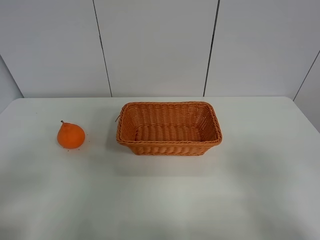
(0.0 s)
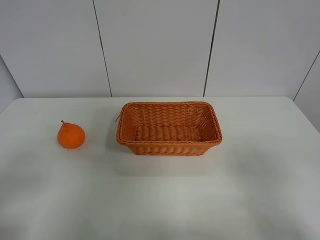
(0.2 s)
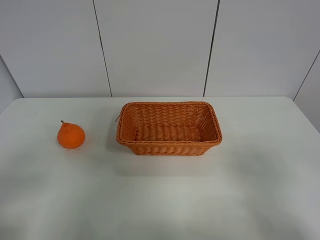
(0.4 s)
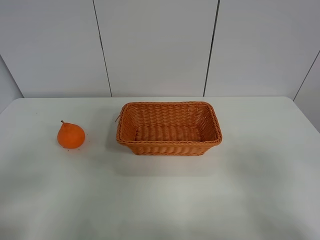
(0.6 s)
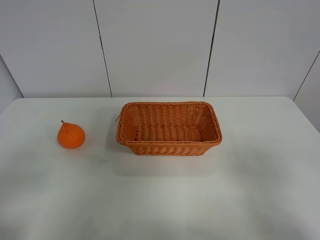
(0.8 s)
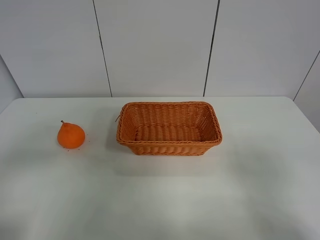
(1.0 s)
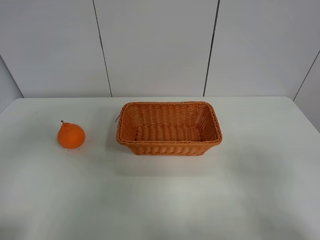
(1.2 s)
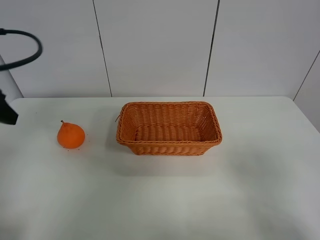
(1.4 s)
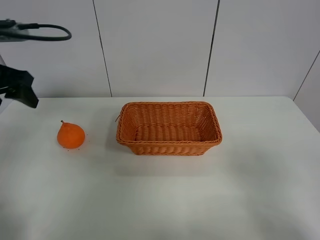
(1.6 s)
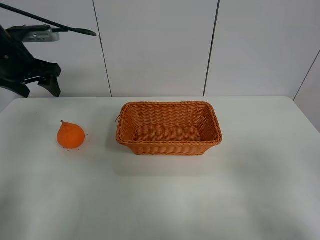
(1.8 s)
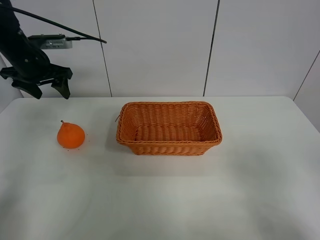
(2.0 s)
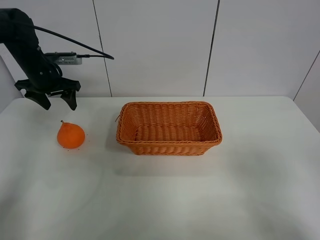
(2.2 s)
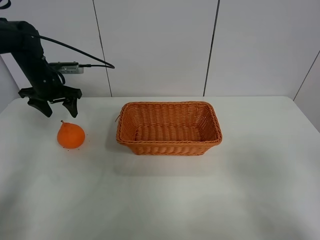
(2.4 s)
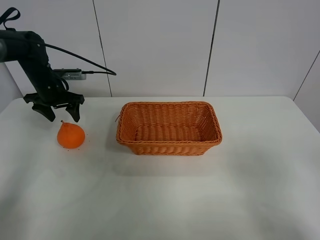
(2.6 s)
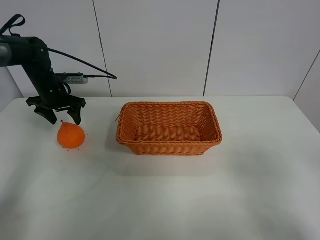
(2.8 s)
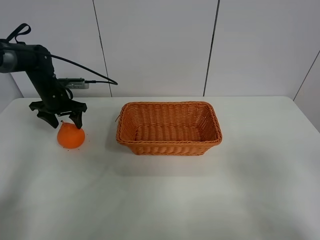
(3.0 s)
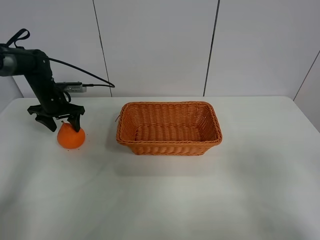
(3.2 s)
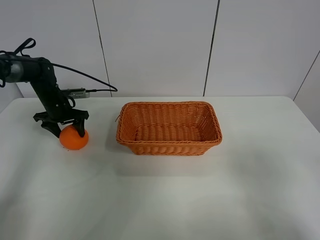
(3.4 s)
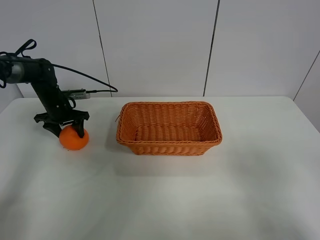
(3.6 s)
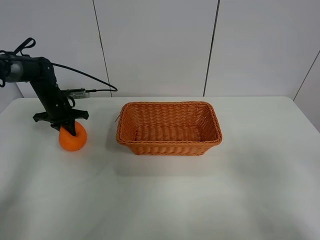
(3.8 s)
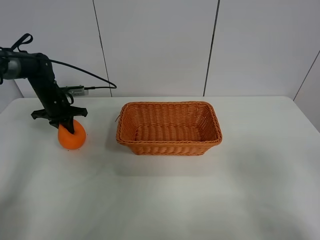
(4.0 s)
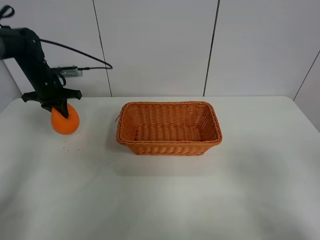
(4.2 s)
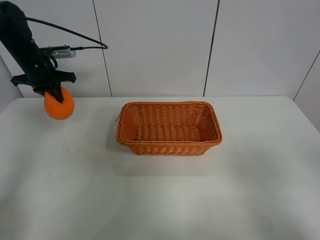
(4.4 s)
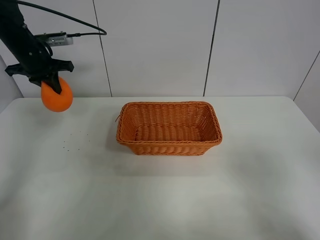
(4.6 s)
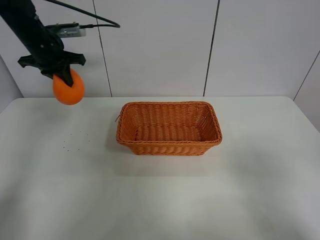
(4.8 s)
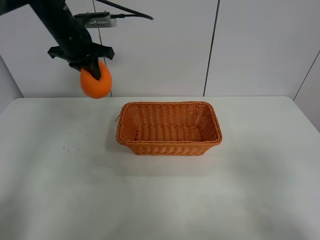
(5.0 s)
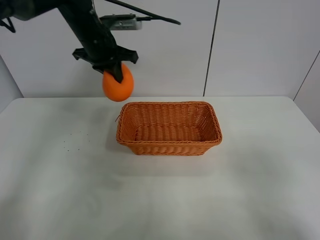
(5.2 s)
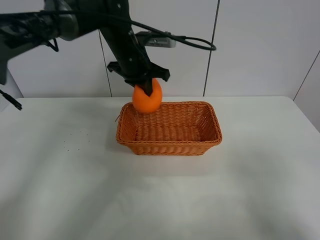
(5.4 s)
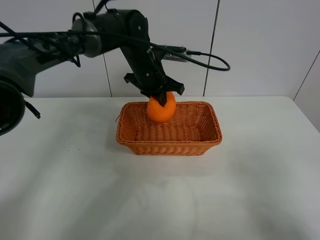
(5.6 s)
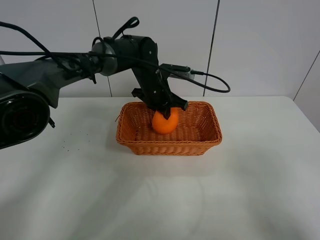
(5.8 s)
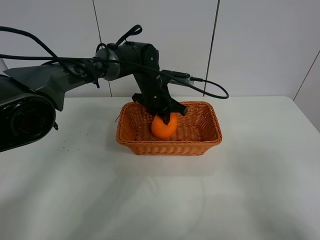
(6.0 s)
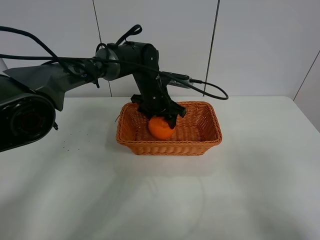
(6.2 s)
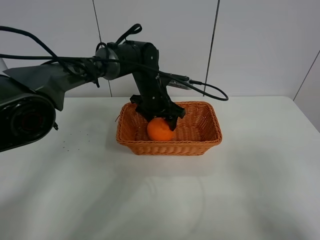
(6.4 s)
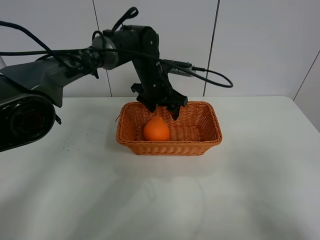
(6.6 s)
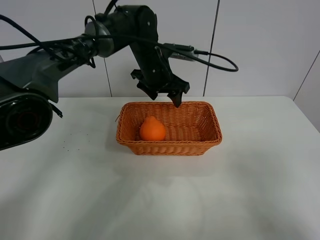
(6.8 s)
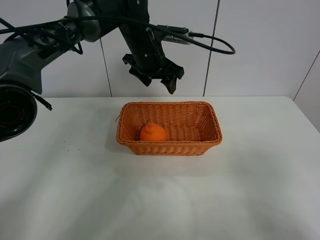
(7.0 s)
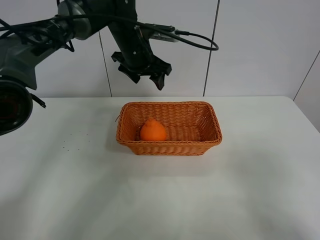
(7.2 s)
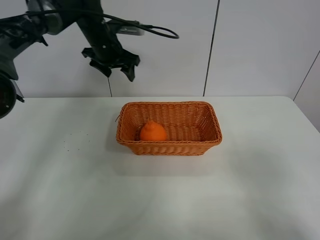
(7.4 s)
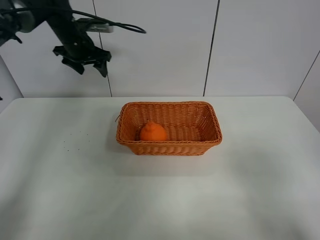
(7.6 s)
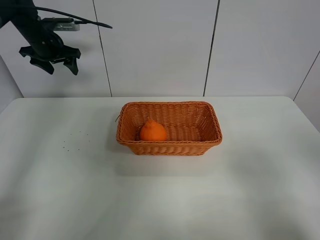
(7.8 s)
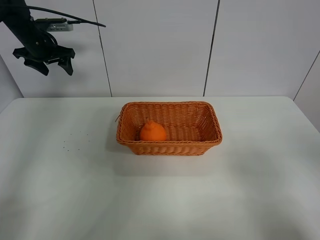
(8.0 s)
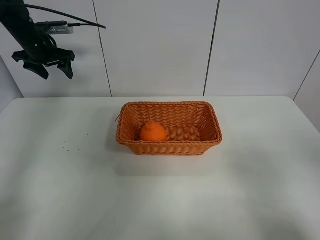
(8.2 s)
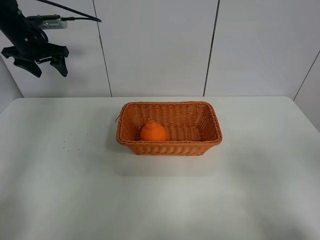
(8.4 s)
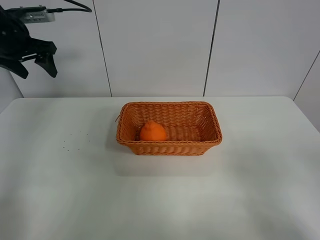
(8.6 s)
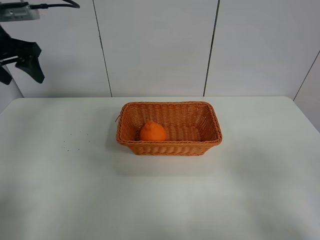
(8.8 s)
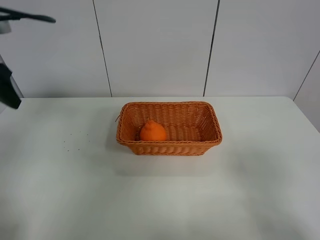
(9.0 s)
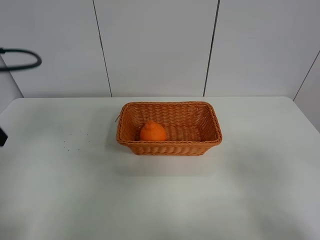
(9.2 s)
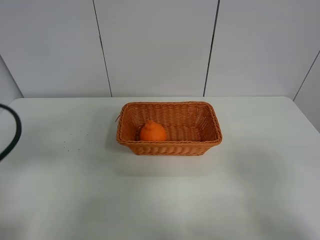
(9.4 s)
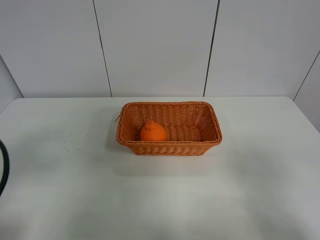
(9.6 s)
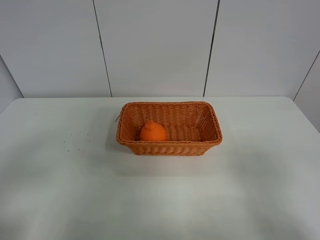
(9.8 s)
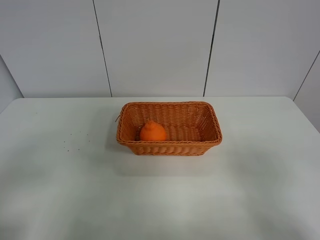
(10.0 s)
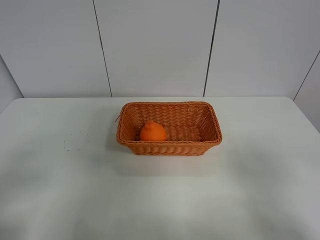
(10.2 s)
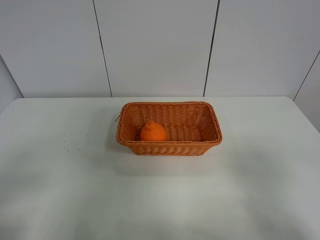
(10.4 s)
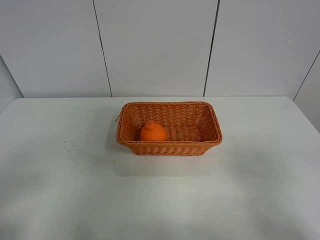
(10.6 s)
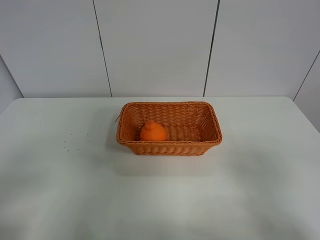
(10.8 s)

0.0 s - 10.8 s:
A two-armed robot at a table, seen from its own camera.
Task of the whole recording: left gripper grabs oranges and puts them in the basket.
Step, 0.0 s - 3.8 s: Grasp the orange with left gripper.
Step, 4.0 s - 7.4 s: Place the orange in the basket with left gripper.
0.0 s - 1.6 s: The left gripper goes roughly 30 cm forward.
1.6 s - 3.0 s: The left gripper heads downward and forward, covering roughly 25 cm.
3.0 s - 4.6 s: The left gripper travels upward by some 15 cm, and closes.
4.6 s - 6.2 s: The left gripper shifts about 30 cm to the right, and opens.
6.2 s - 7.8 s: The left gripper heads to the left, covering about 30 cm.
7.8 s - 9.2 s: The left gripper moves backward, about 35 cm.
9.2 s - 10.8 s: The left gripper moves backward, roughly 20 cm.
